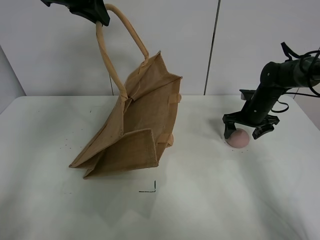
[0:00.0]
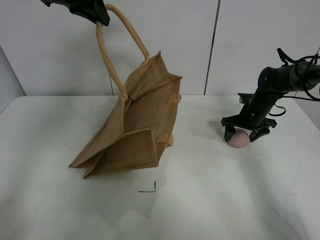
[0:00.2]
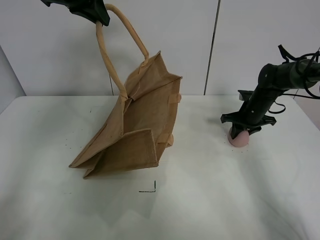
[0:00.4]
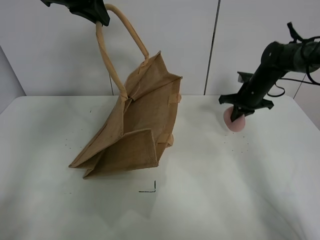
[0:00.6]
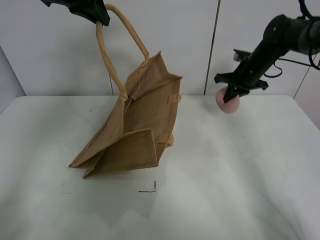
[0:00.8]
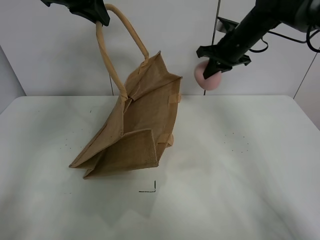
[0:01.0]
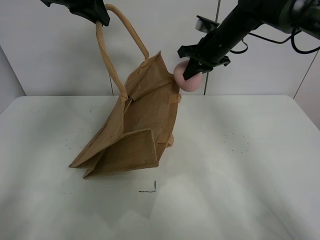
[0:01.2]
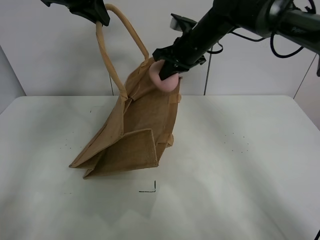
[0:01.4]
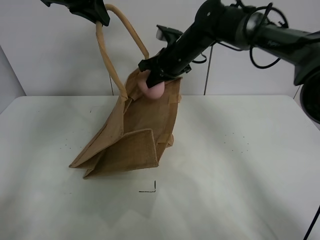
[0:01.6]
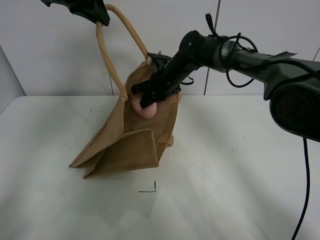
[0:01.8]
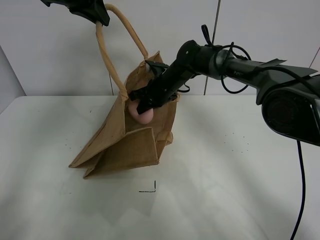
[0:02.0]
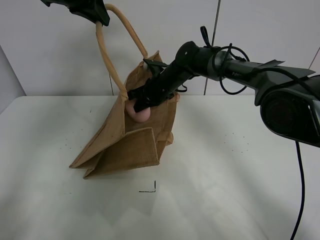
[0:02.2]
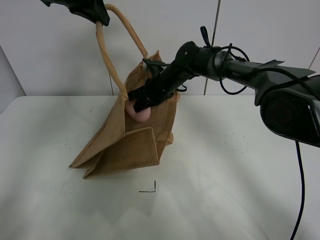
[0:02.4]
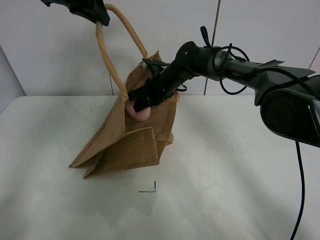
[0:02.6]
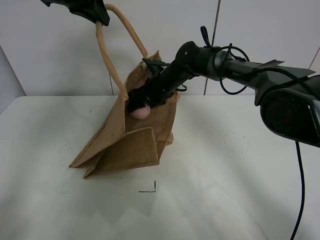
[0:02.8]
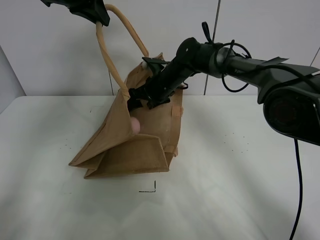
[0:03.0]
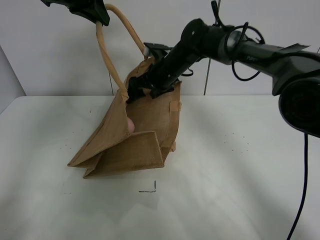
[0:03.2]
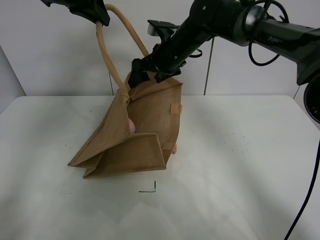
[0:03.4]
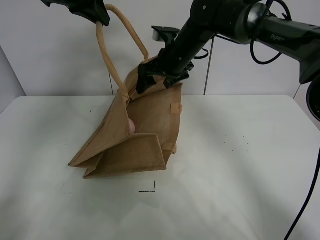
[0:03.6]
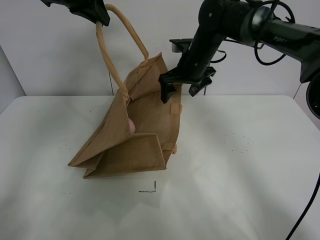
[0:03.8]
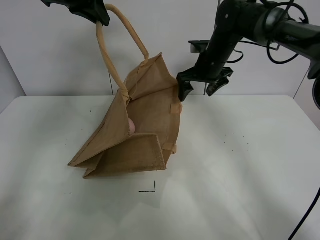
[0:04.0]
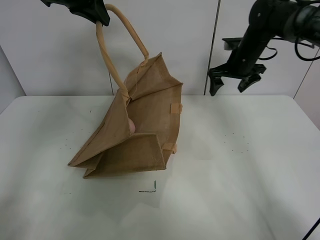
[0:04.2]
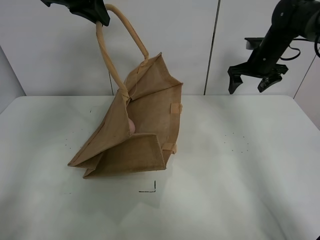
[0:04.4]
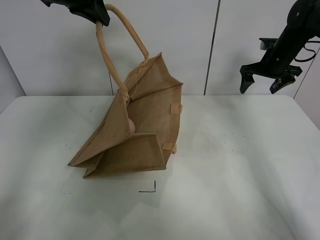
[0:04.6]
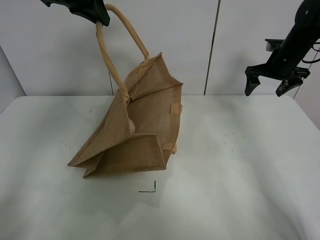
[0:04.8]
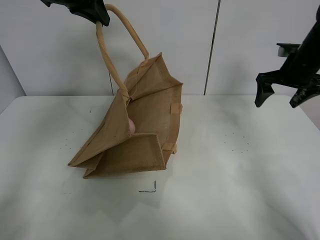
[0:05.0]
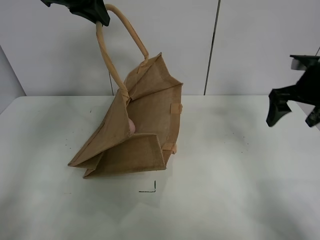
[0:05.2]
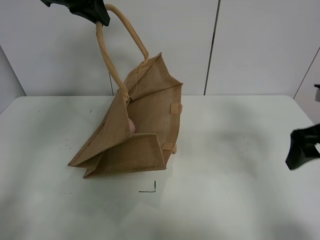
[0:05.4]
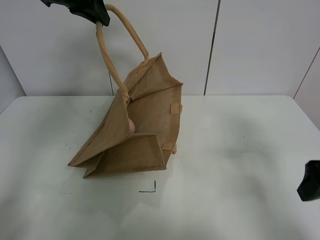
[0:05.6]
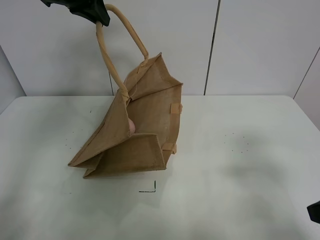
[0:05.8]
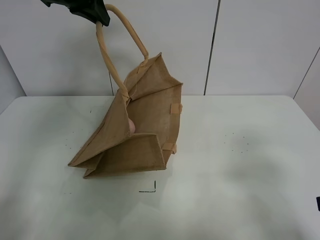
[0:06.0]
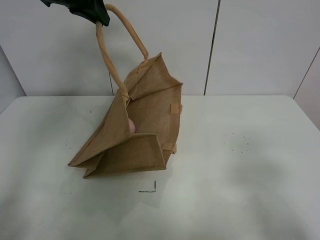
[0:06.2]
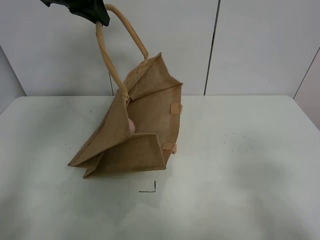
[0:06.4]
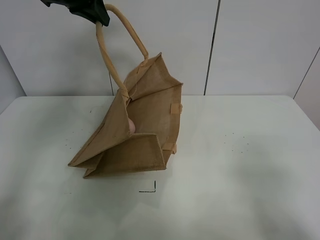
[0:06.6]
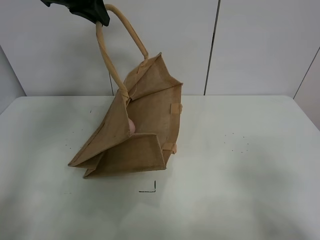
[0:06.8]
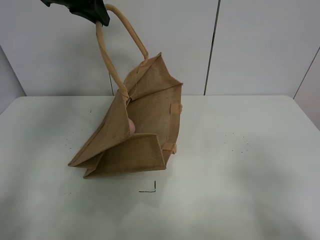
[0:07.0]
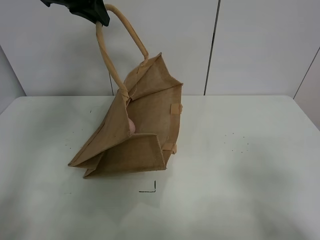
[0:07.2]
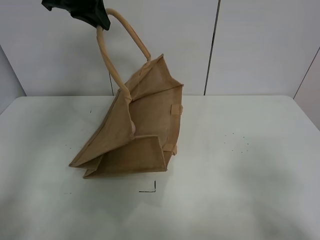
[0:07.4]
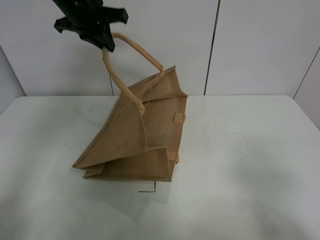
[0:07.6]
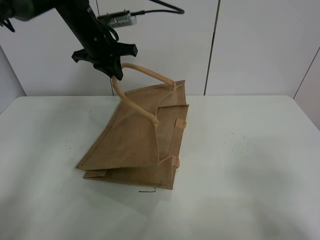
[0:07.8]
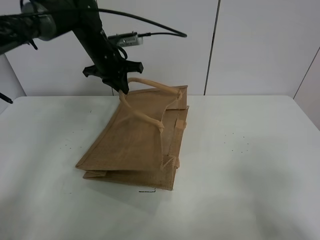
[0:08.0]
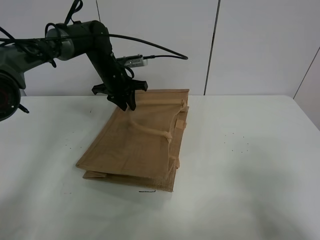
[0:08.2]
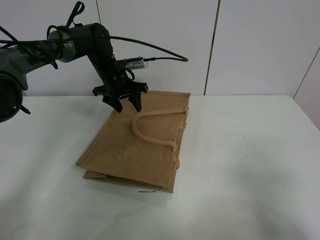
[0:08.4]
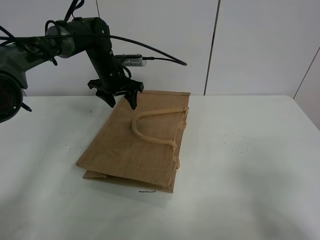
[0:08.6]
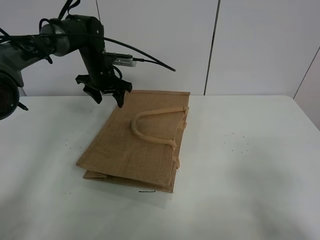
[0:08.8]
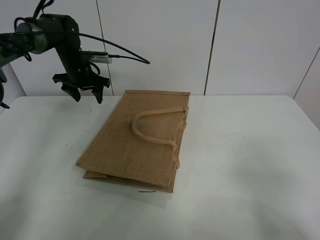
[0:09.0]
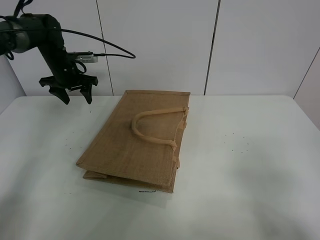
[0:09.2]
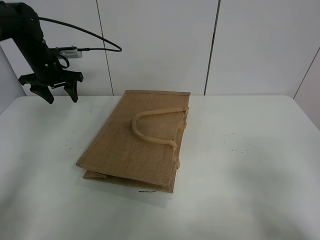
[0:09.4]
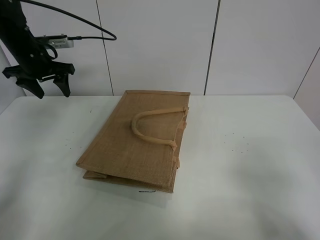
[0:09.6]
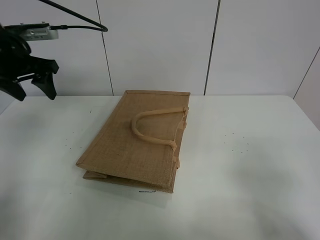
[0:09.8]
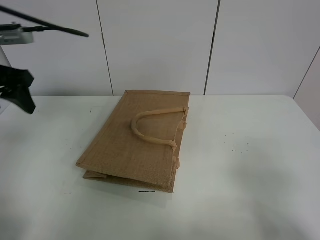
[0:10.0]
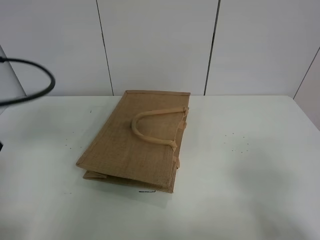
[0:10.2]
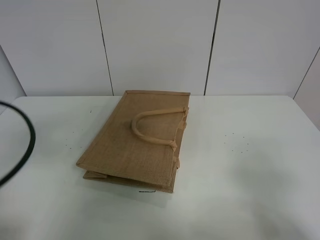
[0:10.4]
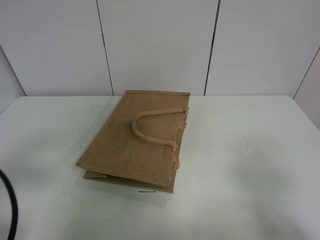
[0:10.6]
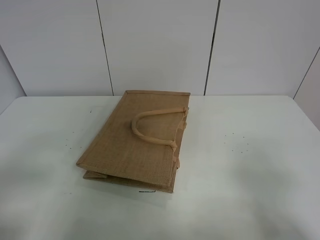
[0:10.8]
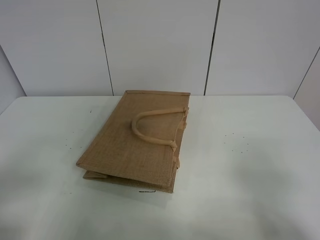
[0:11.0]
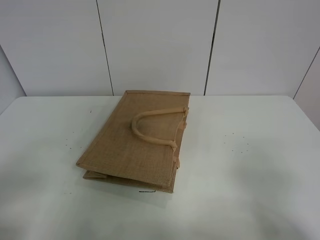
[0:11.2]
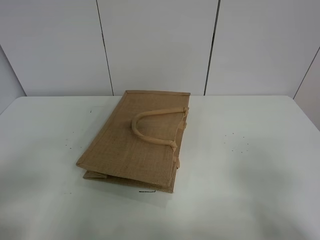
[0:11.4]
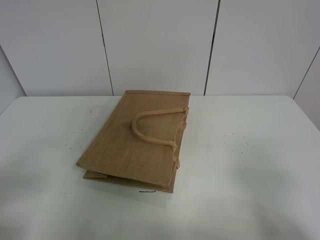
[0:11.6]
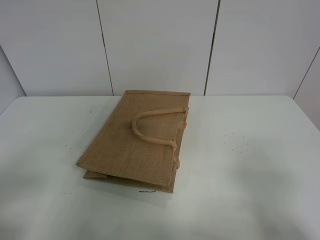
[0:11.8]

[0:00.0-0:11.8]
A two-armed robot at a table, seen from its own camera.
Task of the whole recording: open the brown linen bag and put the peach in the bag.
Step, 0:00.6 to 0:04.0: Place the peach in the handbag with right gripper.
Step, 0:04.2 to 0:08.8: Put down the handbag with left grippe.
0:00.0 to 0:01.4: The right gripper heads to the left and upward, covering some 25 cm, and closes.
0:01.4 to 0:03.0: The right gripper moves downward and to the left, some 10 cm, and opens up.
0:03.0 to 0:04.4: The right gripper moves to the right, roughly 25 cm.
0:04.4 to 0:06.0: The right gripper travels backward by approximately 40 cm.
0:06.0 to 0:07.4: The right gripper shifts roughly 5 cm backward.
0:07.4 to 0:08.8: The left gripper shifts roughly 20 cm downward and forward, and opens up.
0:08.8 to 0:10.4: The left gripper shifts some 40 cm backward.
0:10.4 to 0:11.8: The left gripper shifts roughly 10 cm backward.

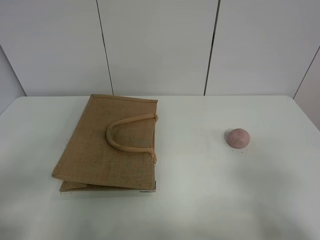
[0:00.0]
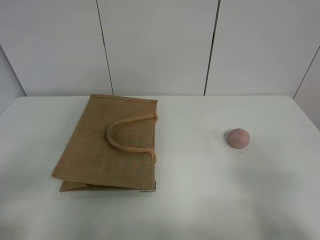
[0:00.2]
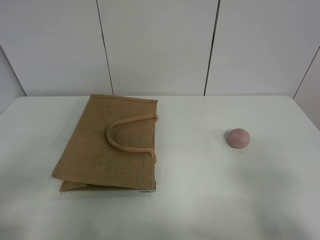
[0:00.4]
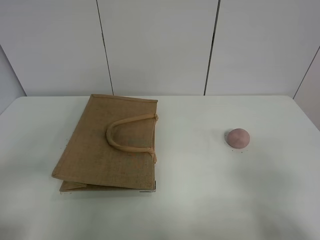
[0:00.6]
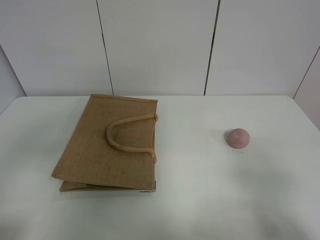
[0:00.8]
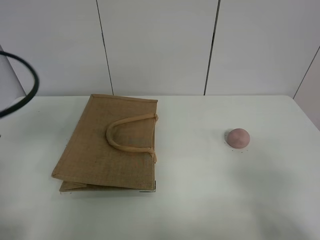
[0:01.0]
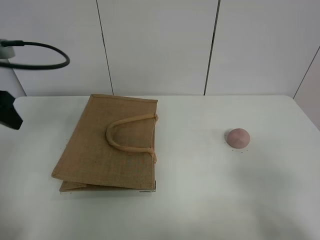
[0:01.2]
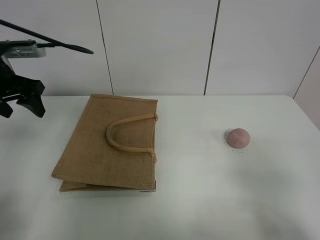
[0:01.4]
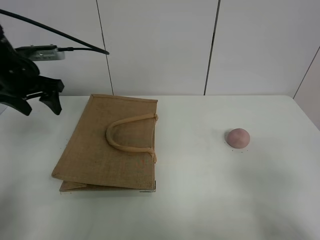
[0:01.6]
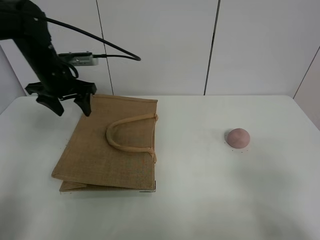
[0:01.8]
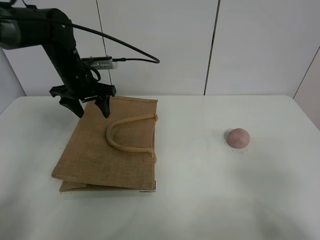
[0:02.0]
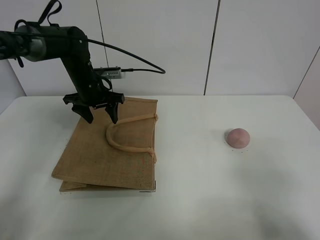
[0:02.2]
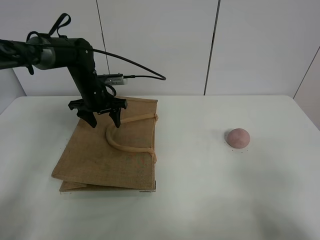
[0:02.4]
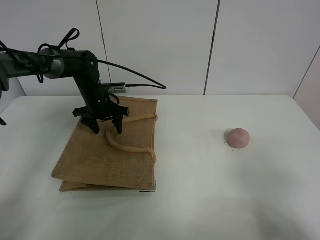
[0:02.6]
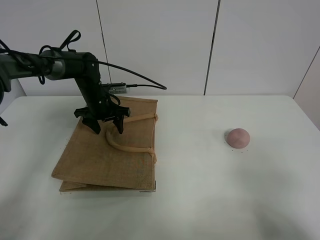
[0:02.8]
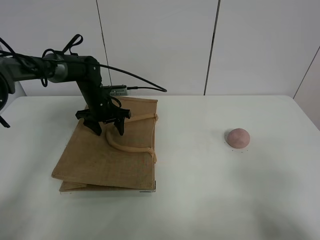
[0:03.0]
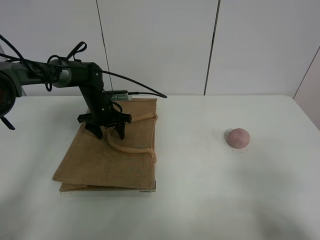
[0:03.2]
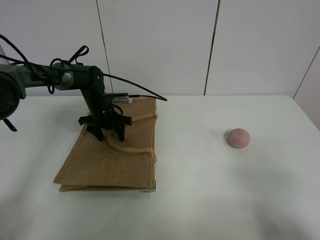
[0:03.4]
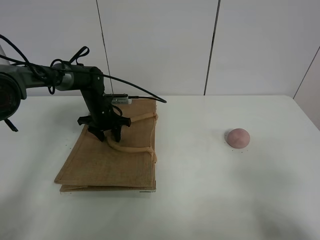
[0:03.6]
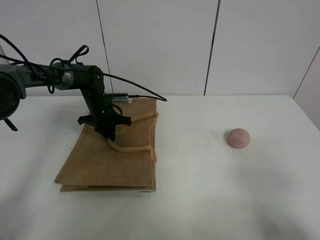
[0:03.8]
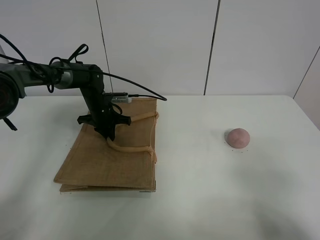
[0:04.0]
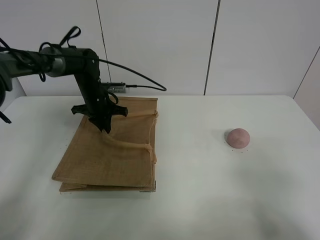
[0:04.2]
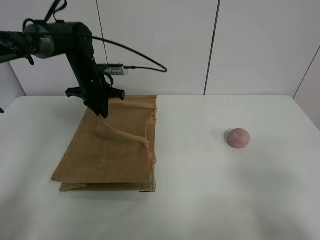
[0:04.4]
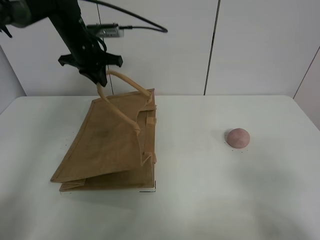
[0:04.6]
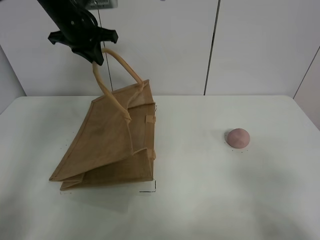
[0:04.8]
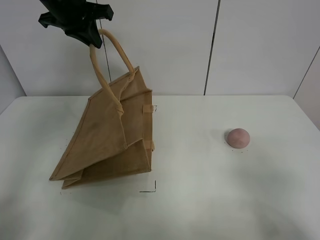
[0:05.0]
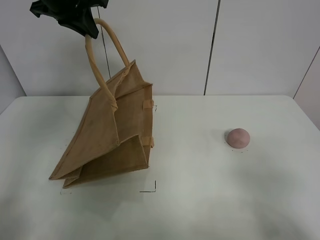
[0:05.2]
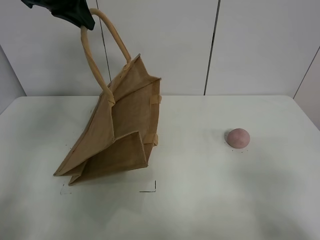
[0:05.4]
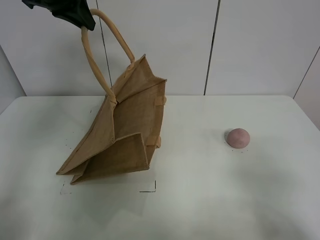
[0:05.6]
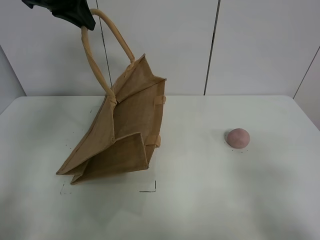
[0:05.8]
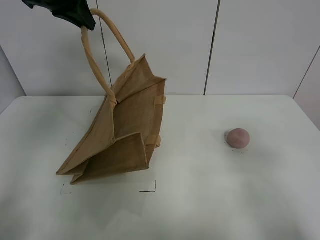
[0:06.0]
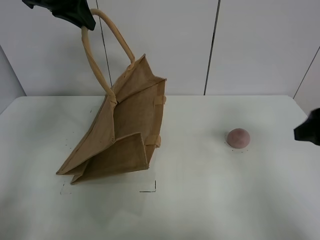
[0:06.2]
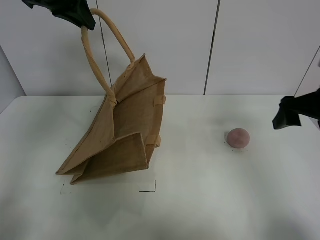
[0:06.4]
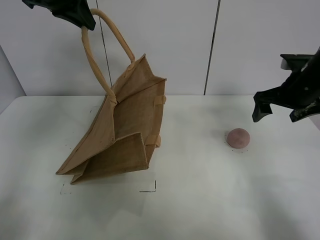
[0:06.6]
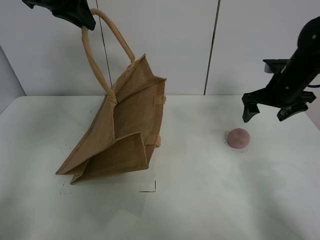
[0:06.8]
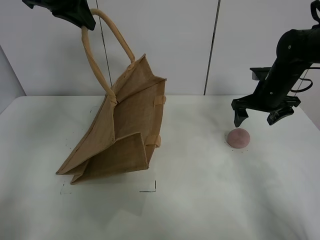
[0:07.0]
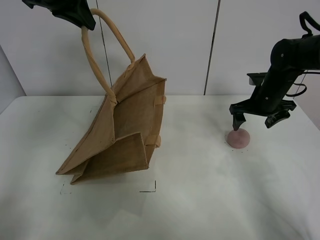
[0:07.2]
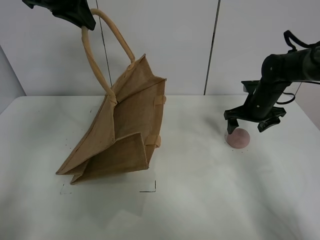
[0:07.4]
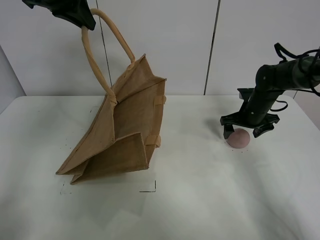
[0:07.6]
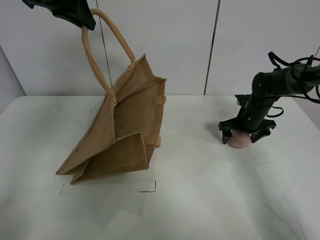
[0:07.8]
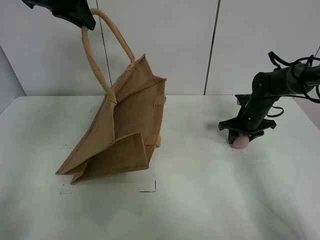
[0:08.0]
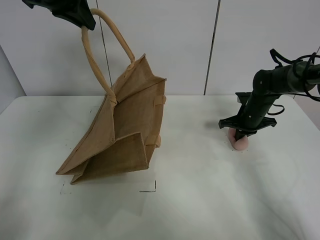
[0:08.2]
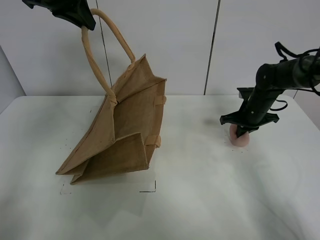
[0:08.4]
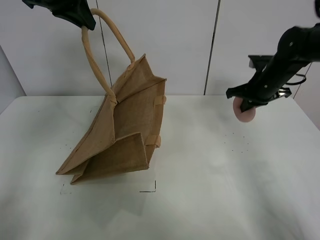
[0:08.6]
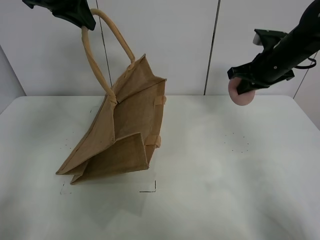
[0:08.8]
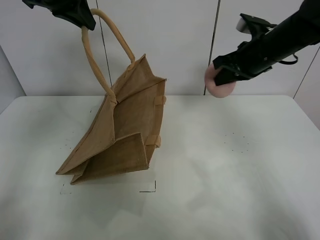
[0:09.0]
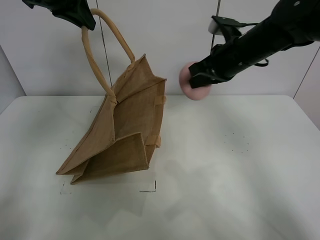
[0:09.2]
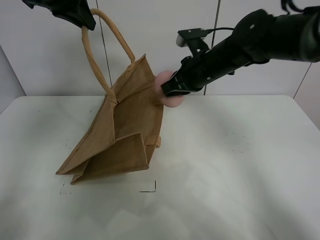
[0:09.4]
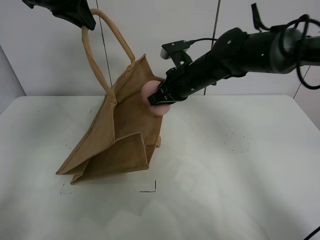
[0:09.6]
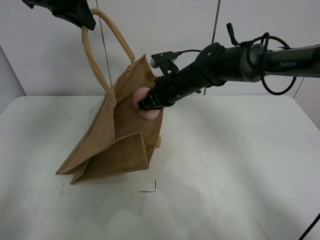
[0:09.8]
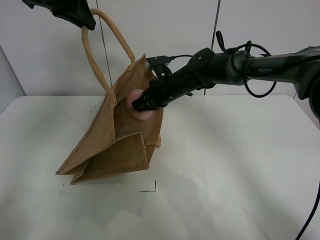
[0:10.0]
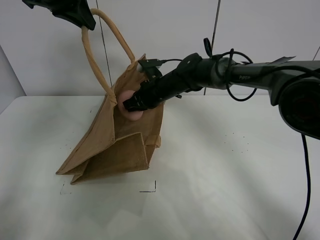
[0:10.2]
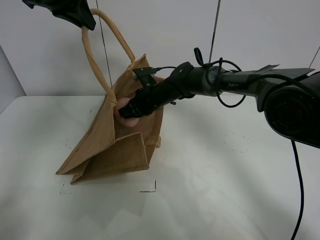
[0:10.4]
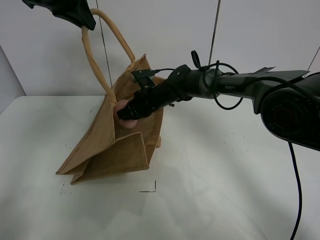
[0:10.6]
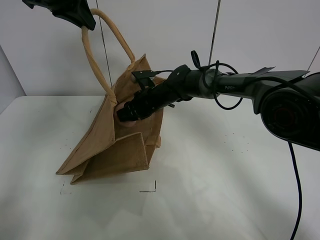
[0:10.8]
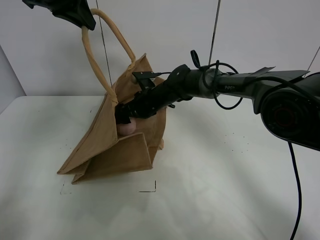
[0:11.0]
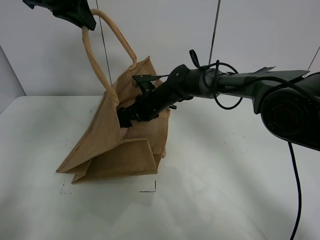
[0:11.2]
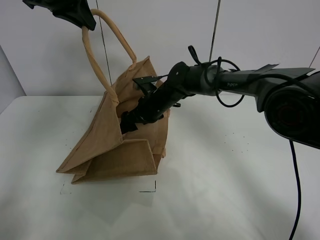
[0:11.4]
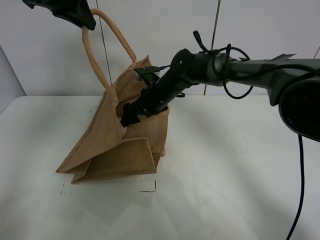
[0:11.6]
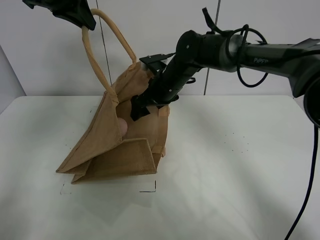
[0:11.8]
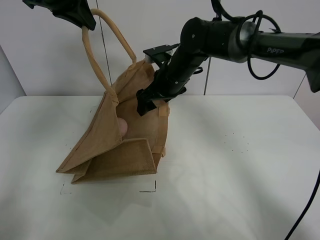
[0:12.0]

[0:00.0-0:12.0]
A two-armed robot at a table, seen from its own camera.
Task of the whole recording: open the brown linen bag and put the peach in the bag.
Step, 0:00.0 to 0:05.0: Lift the handbag with left gripper.
Step, 0:05.2 to 0:08.0: Grasp the peach with right gripper.
0:00.0 to 0:01.6: The left gripper moves forward, some 35 cm.
0:01.6 to 0:03.0: The left gripper moves downward, to the right and forward, approximately 20 cm.
0:03.0 to 0:04.4: The left gripper goes approximately 10 cm upward, and closes.
0:04.4 to 0:06.0: The left gripper shifts approximately 20 cm upward, while the right gripper moves forward, approximately 10 cm.
0:06.0 to 0:07.6: The right gripper travels forward and downward by roughly 40 cm.
0:07.6 to 0:09.0: The right gripper shifts approximately 20 cm upward, and closes its fingers.
0:09.0 to 0:10.4: The right gripper heads to the left and downward, covering approximately 25 cm.
0:10.4 to 0:12.0: The right gripper goes roughly 10 cm upward, and opens.
